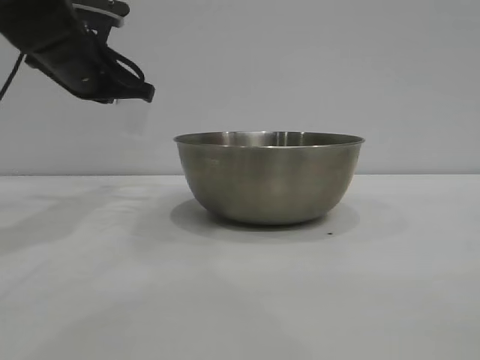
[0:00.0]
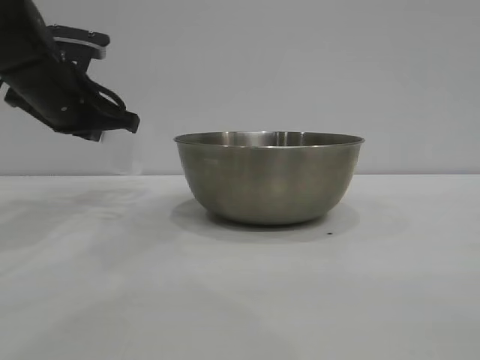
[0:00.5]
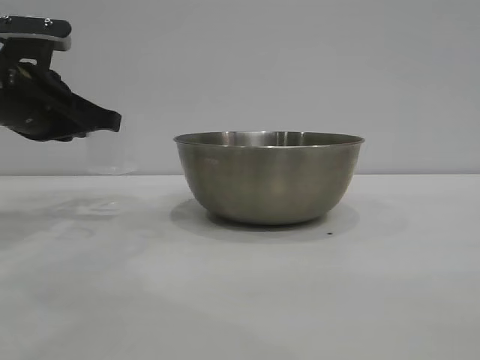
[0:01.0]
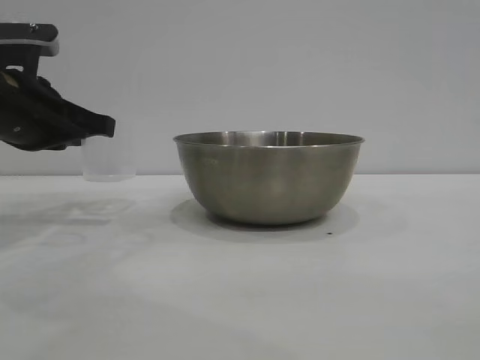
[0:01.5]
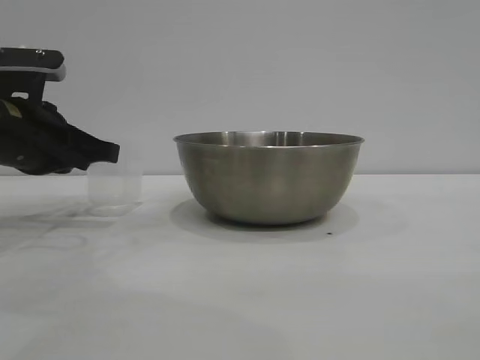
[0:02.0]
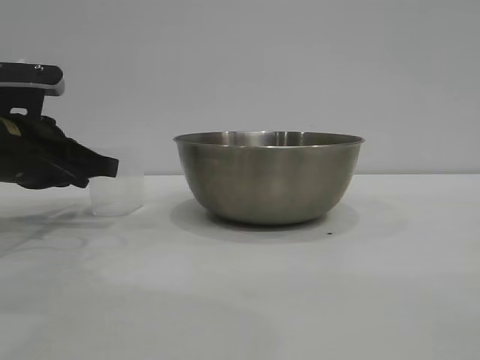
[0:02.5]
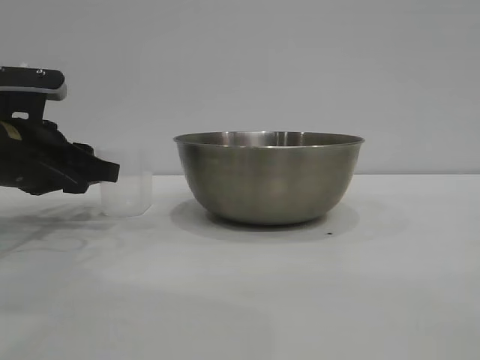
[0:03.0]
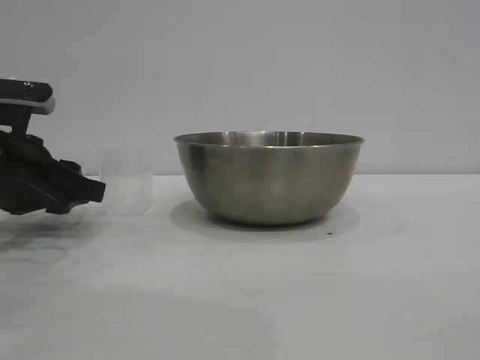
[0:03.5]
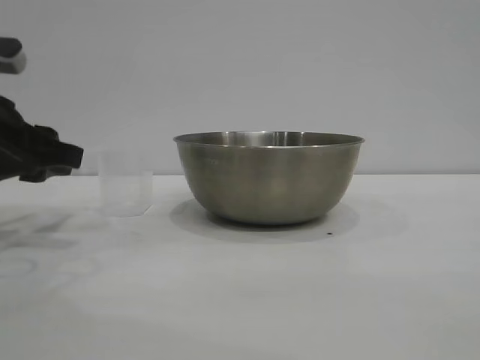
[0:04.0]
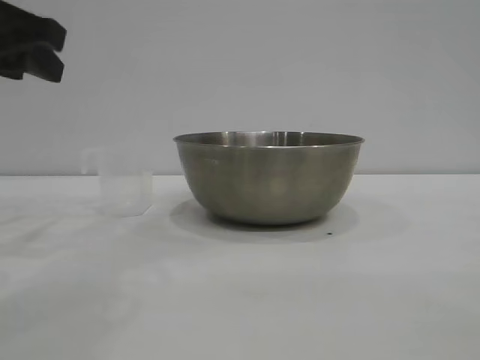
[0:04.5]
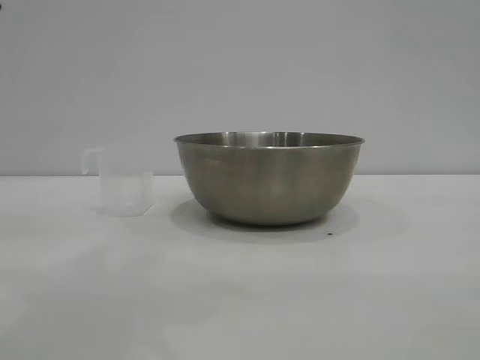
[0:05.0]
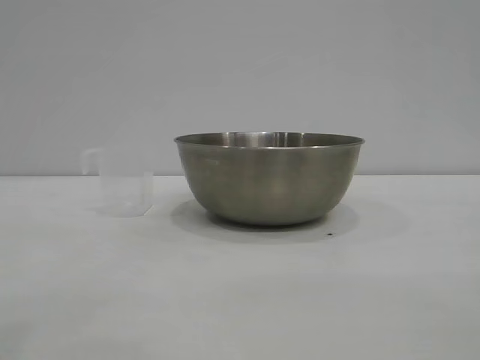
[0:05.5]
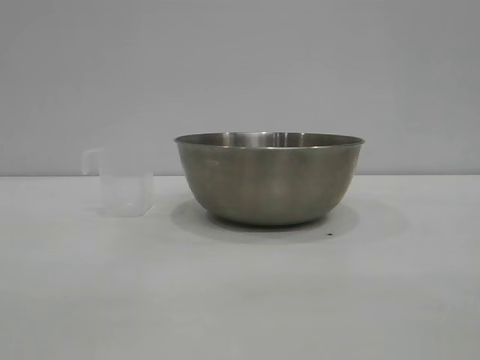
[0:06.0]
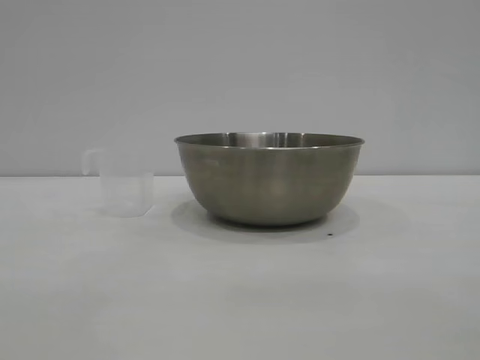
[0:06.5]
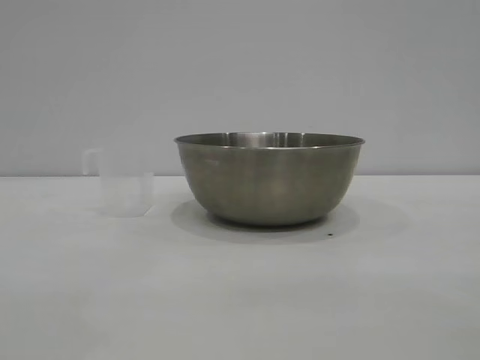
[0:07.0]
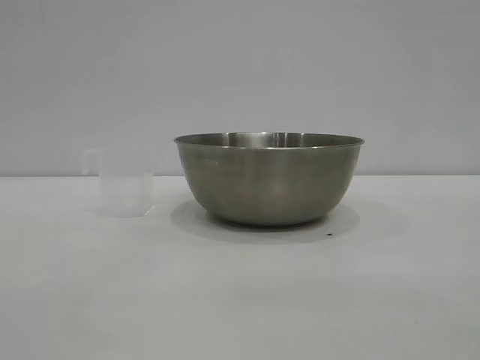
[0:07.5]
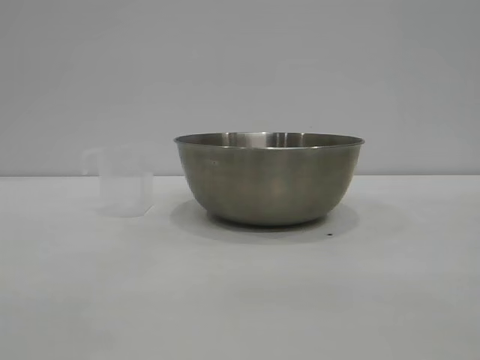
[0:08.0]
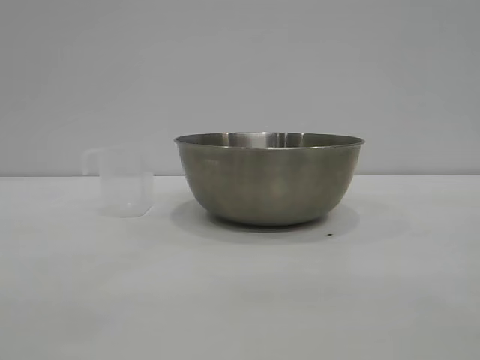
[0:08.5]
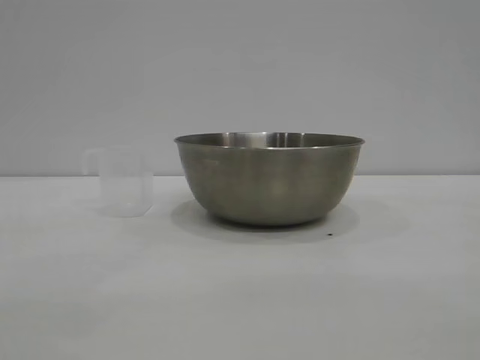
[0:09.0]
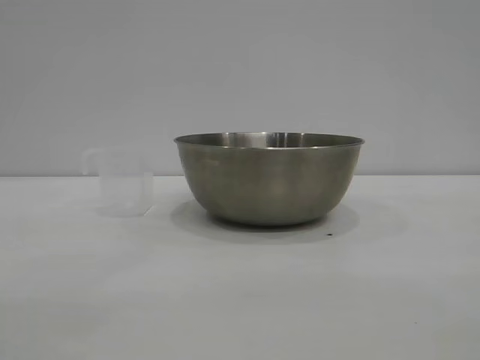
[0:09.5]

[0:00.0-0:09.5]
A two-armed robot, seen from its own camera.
Task of the whole recording: the right gripper grasp the rice container and place it in the center of the table, the left gripper grasp the rice scoop and pour the rice into the rice container.
Step, 0:00.0 to 0:04.0: Place the cup on the table with the left gripper.
